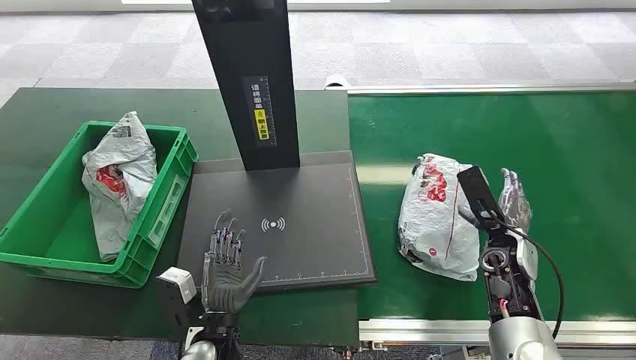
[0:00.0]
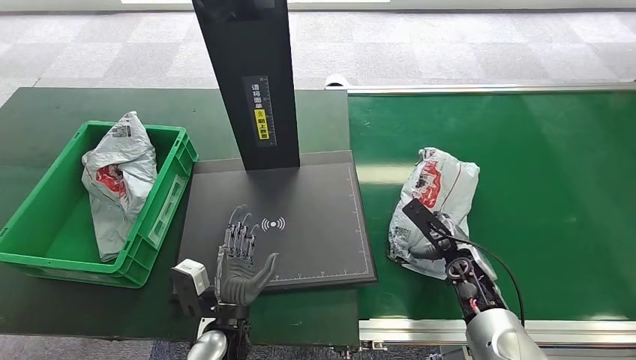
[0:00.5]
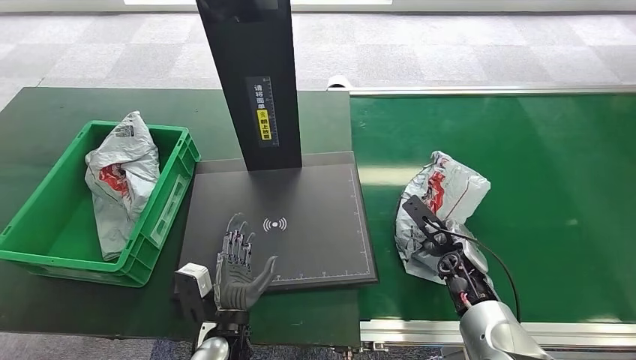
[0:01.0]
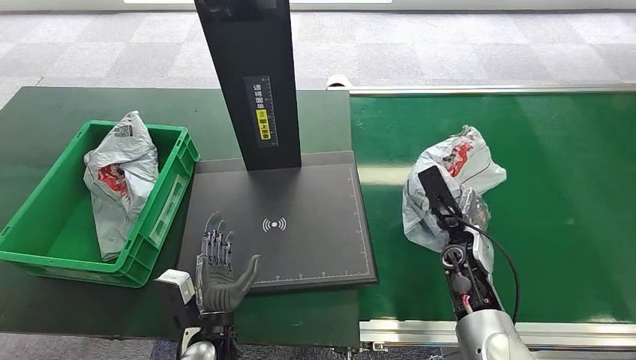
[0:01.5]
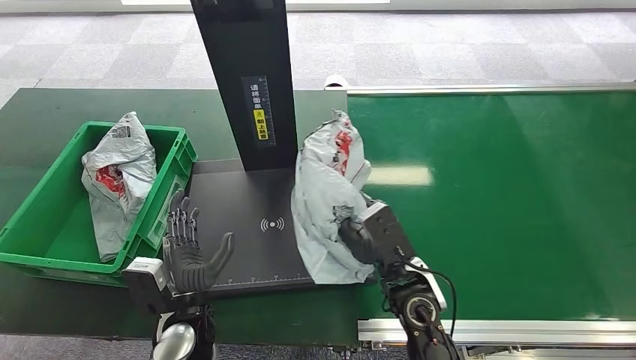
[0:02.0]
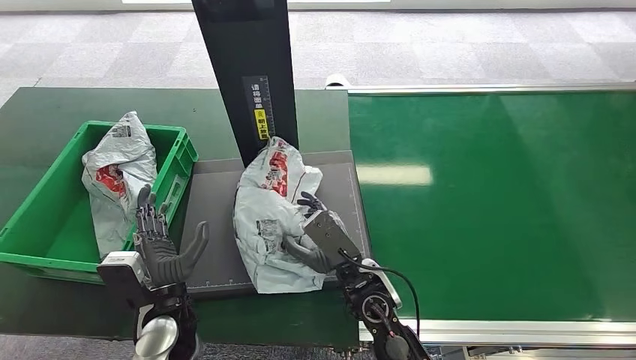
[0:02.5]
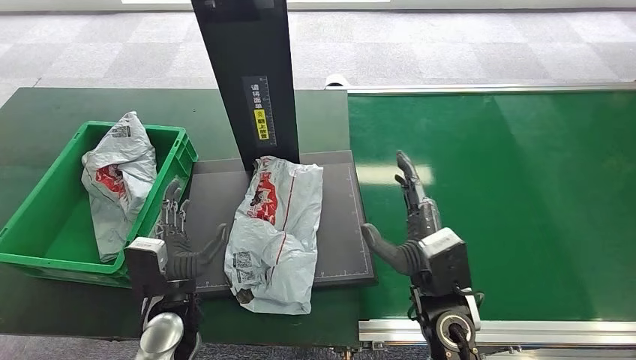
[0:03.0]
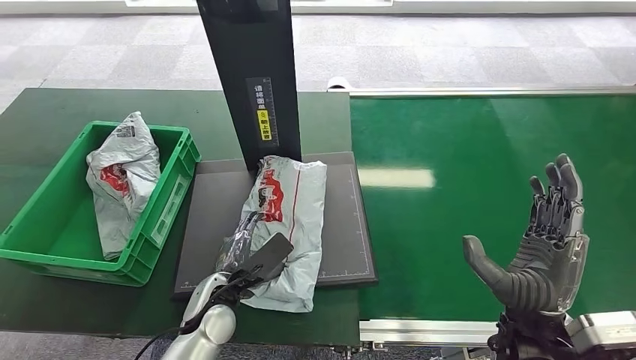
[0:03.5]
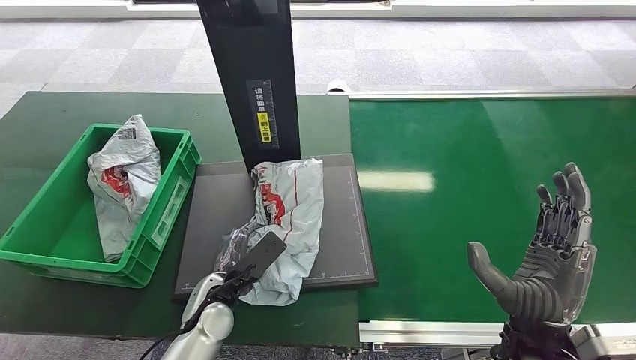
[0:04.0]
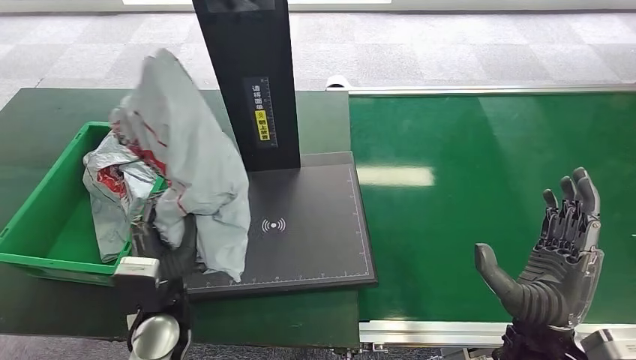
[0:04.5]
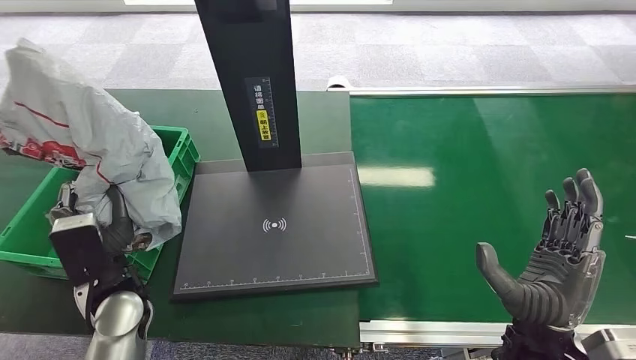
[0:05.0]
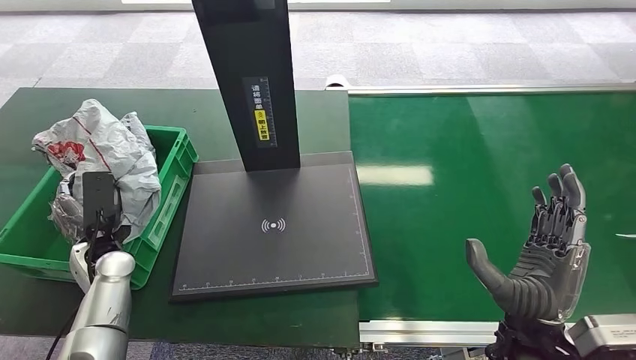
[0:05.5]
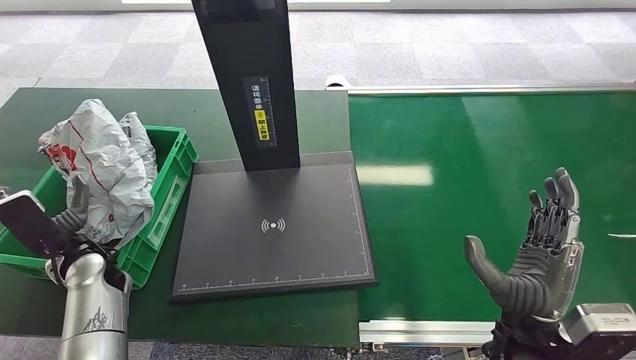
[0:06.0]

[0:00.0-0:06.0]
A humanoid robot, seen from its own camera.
Step, 0:00.0 to 0:01.5: Pick up the package from the conveyor belt.
Step, 0:02.0 to 0:03.0: Place the package onto the inbound machine.
Step, 0:03.5 to 0:04.5: Pick up the package from the inbound machine.
Step, 0:05.0 to 0:06.0: Place the package into the parcel locker.
